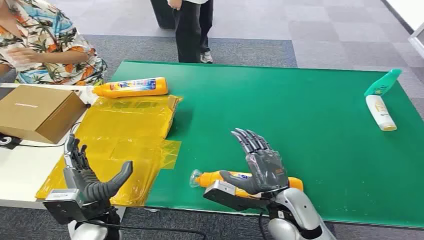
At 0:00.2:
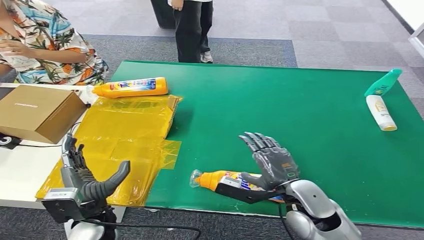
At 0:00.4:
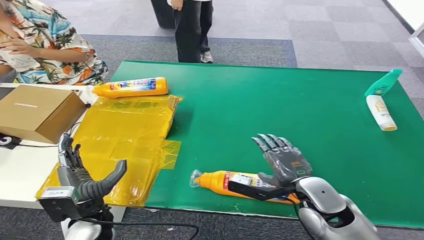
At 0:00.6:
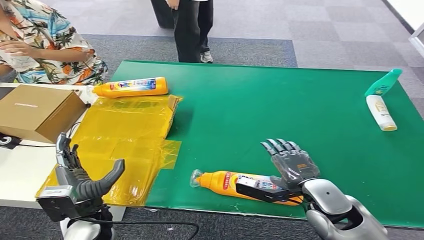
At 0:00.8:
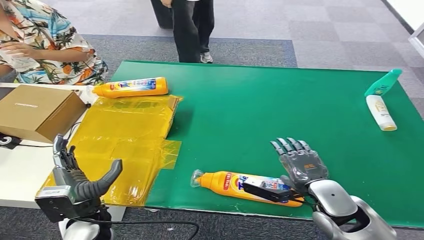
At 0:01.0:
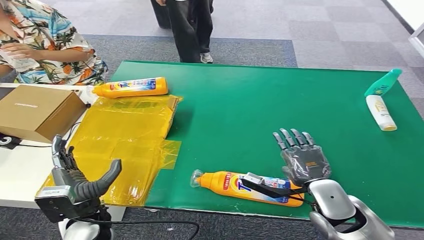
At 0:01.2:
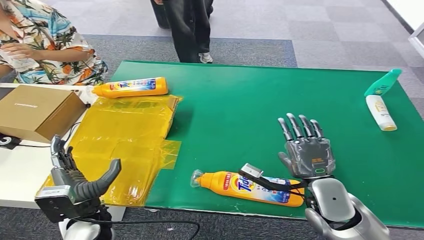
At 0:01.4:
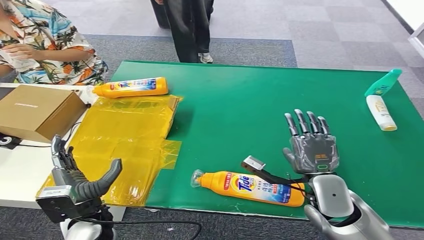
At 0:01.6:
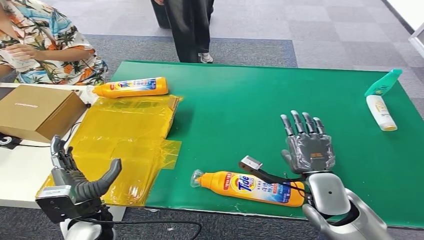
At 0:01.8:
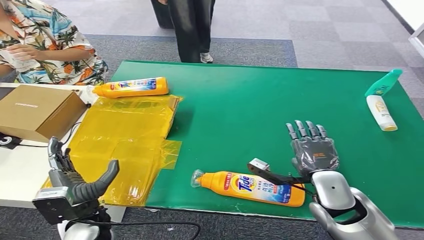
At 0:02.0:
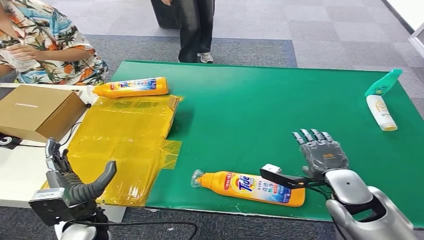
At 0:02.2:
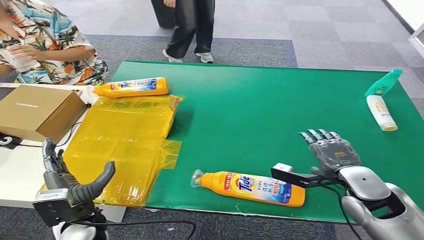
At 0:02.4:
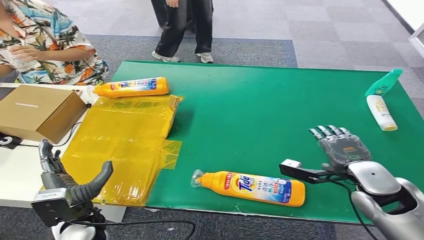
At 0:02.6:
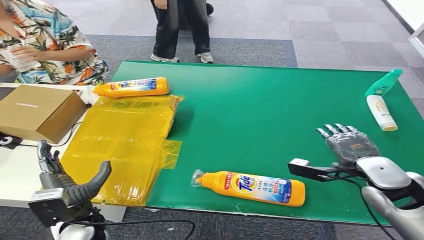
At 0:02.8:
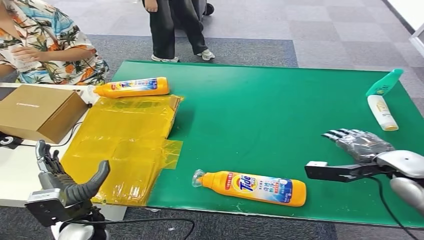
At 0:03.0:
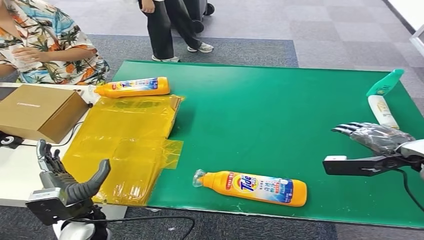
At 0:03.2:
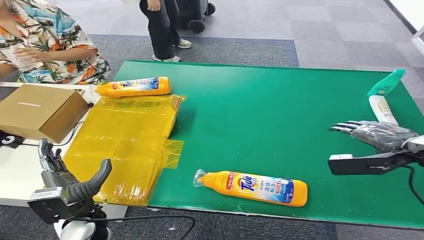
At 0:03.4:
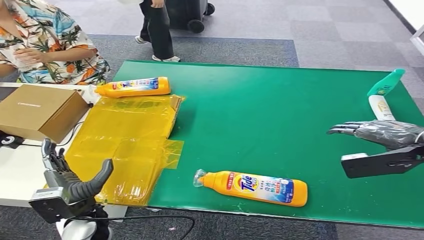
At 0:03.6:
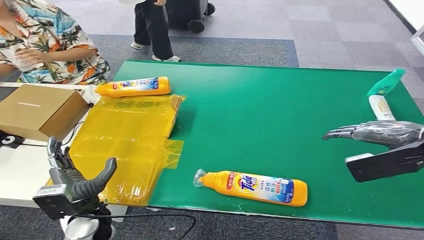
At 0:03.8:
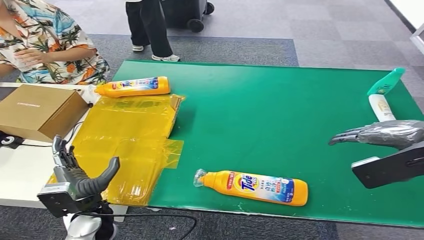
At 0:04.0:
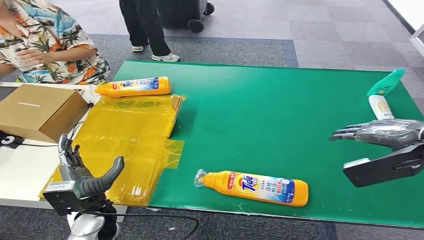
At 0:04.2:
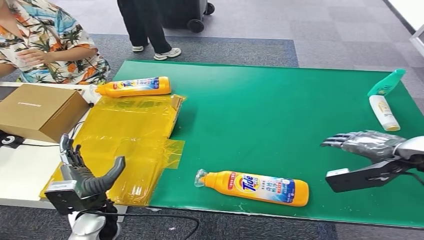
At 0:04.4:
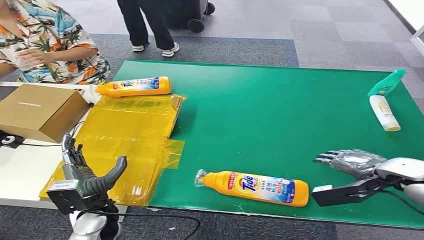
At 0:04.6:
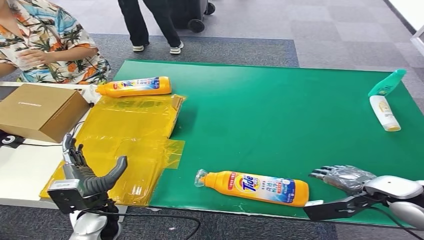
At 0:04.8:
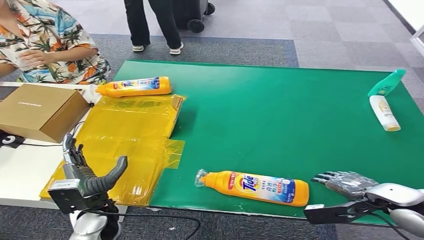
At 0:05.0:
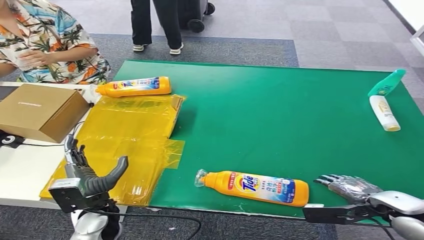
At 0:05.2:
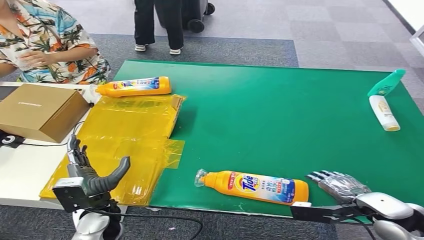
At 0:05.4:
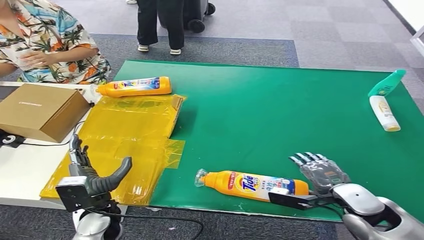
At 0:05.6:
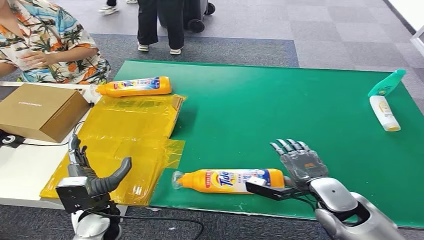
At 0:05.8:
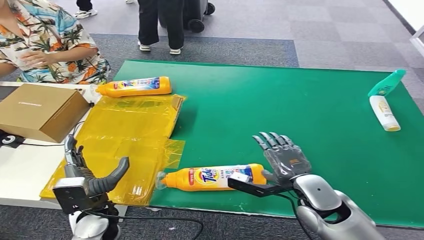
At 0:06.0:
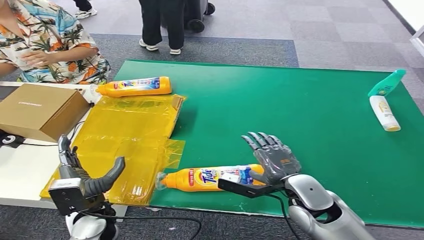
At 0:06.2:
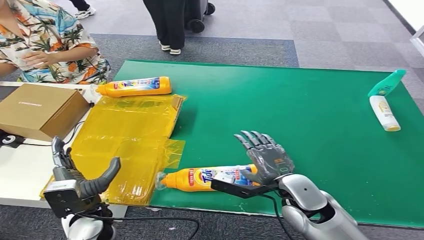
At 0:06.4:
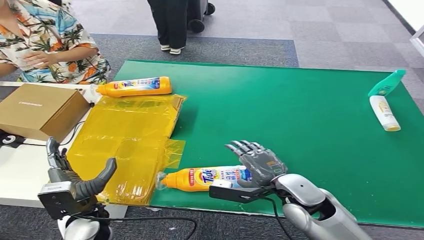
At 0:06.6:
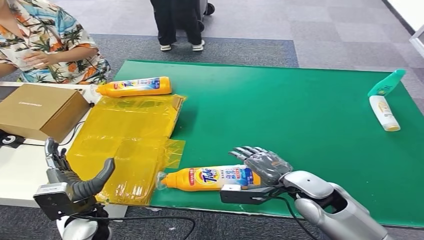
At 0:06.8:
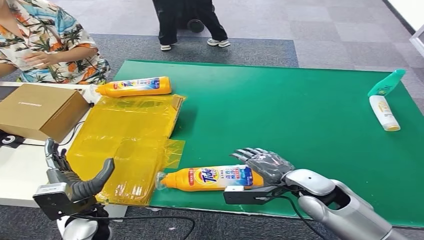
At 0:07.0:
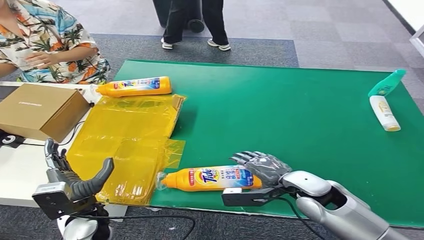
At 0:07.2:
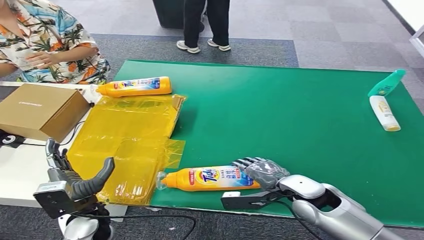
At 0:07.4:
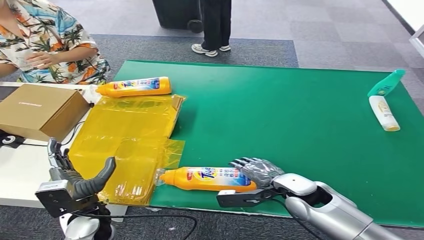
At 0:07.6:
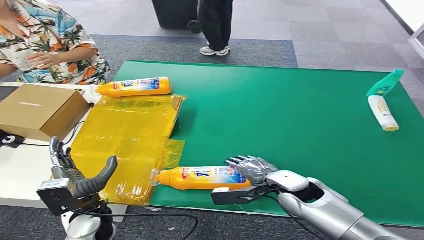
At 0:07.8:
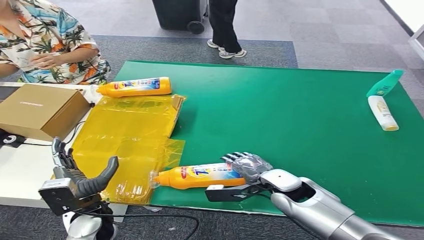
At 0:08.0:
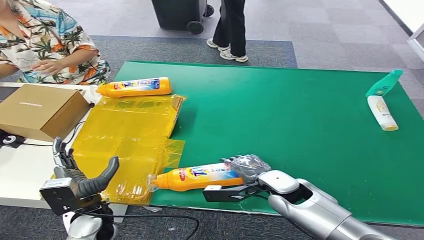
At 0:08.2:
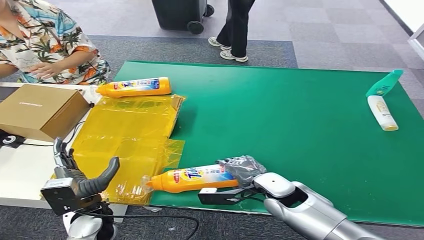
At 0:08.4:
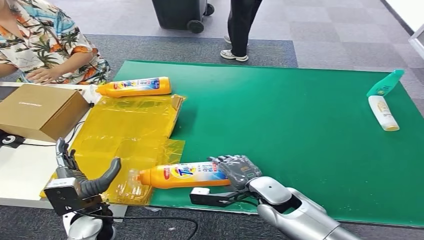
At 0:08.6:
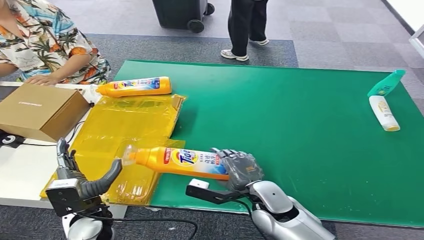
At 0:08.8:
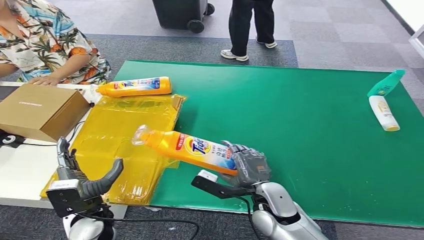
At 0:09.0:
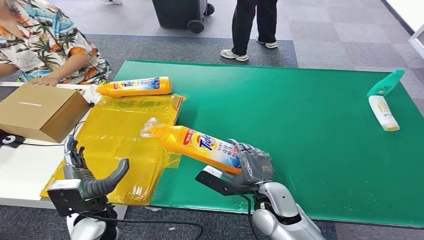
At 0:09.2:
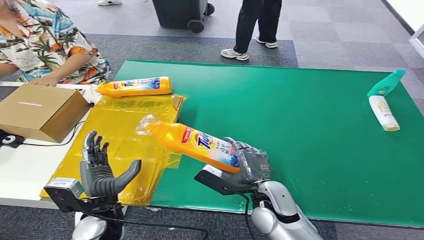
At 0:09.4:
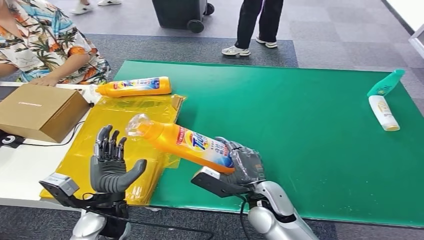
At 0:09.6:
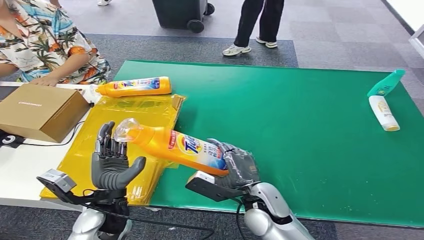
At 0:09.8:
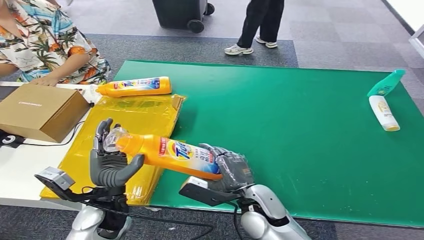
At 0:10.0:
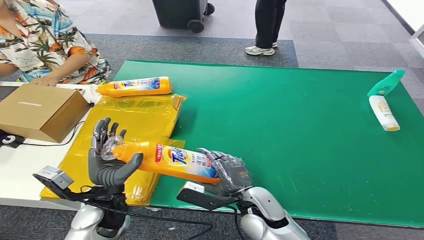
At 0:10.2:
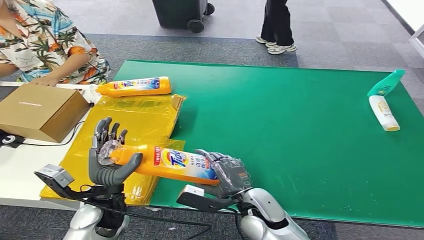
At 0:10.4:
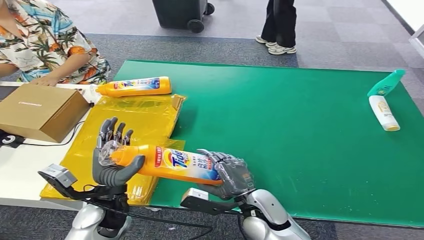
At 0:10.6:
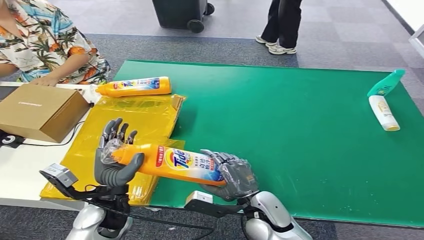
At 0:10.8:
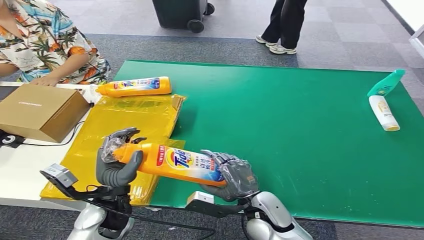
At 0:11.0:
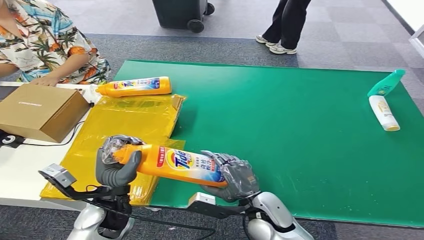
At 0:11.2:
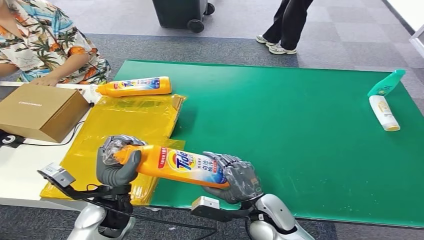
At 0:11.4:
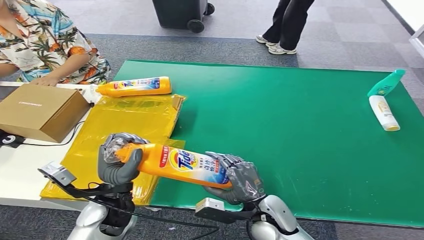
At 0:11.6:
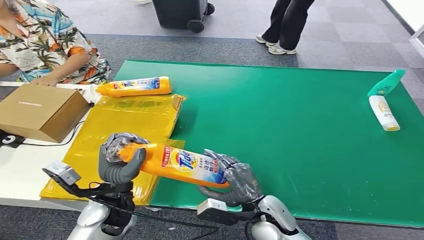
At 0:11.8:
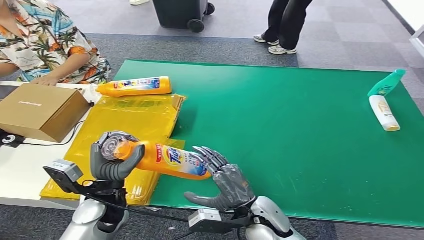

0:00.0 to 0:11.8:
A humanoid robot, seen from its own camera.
Step, 0:00.0 to 0:09.0: Pick up the bottle from the table.
0:03.0 to 0:04.4: The right hand goes upward and returns, approximately 15 cm each way.
0:04.4 to 0:06.0: The right hand heads to the left and downward, covering roughly 20 cm.
0:10.4 to 0:11.8: The hands move only a little.

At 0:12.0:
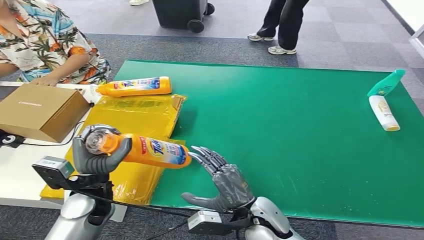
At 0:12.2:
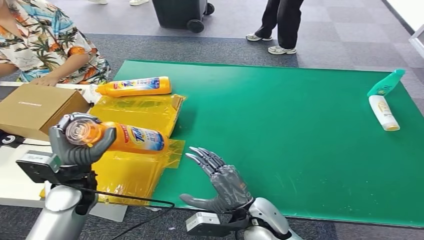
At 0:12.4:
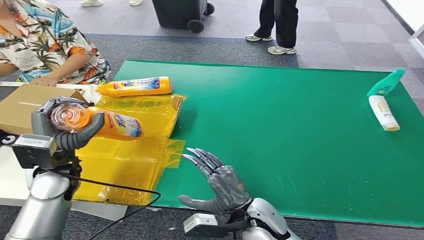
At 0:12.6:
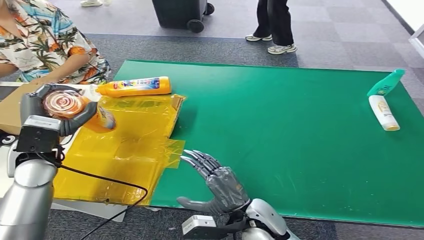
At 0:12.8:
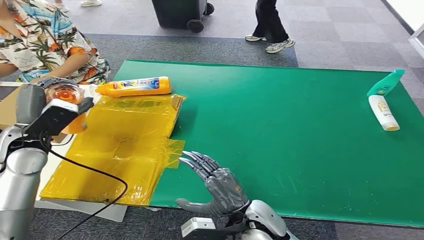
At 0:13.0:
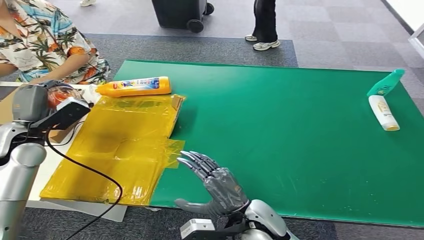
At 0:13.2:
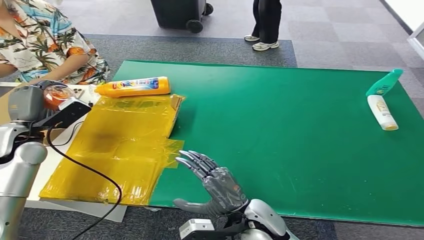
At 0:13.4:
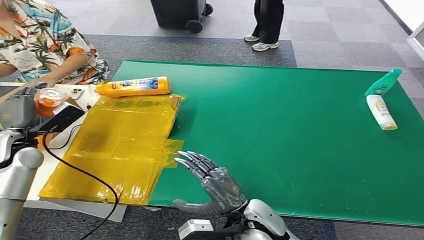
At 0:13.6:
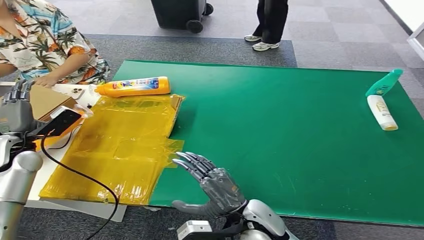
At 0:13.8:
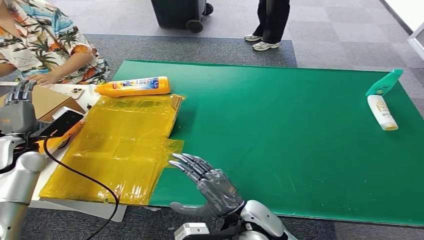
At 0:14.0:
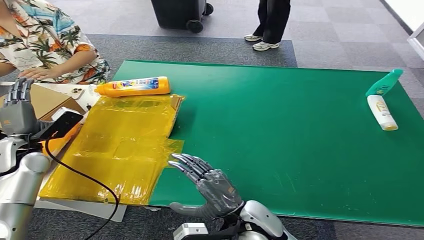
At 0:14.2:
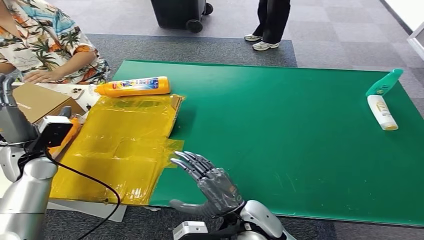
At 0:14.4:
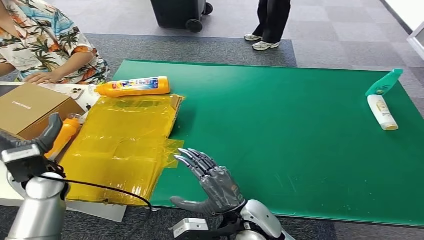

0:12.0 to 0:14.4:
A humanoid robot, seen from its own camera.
Step, 0:12.0 to 0:14.4: Turn the bottle to the front side.
0:13.2 to 0:14.4: The left hand travels backward and to the right by approximately 10 cm.
